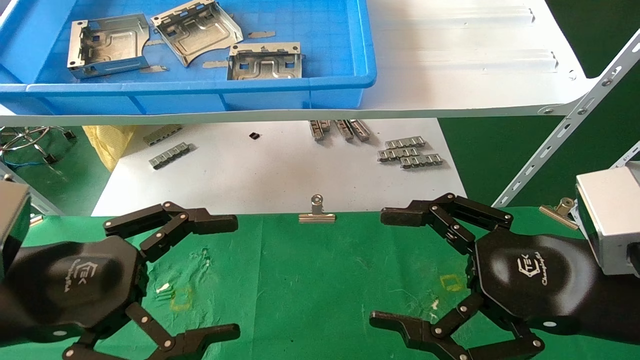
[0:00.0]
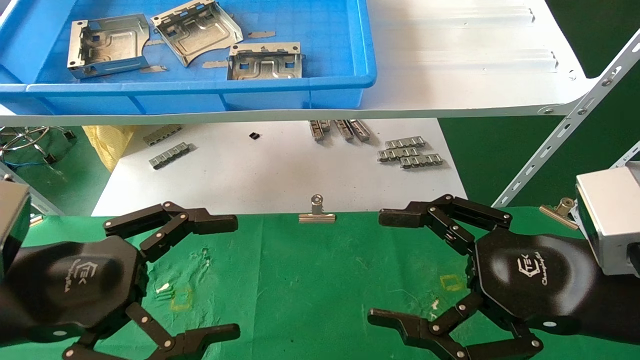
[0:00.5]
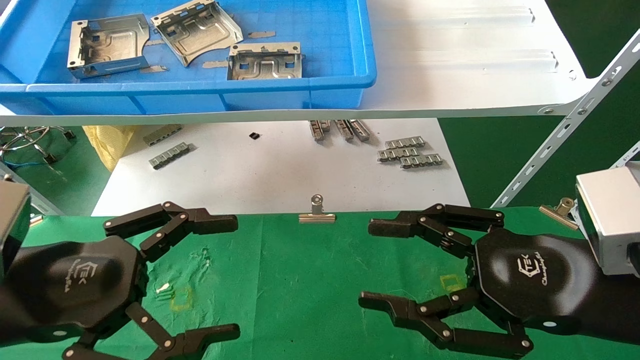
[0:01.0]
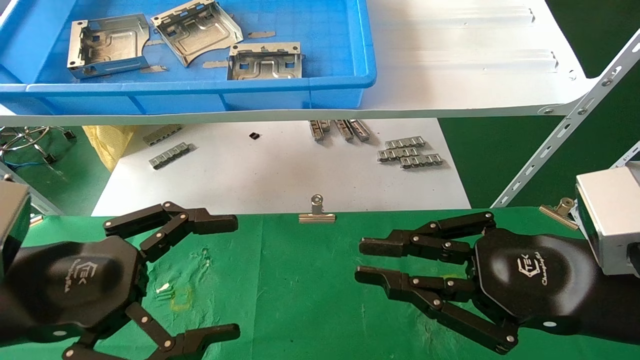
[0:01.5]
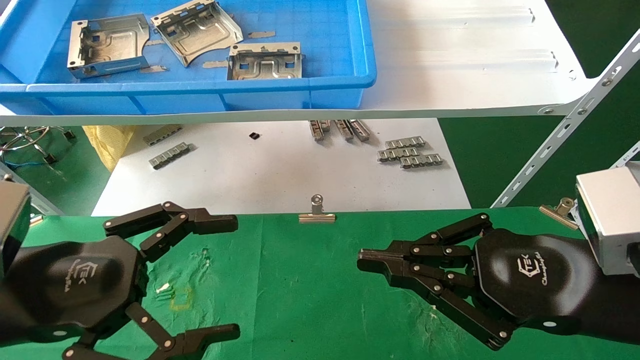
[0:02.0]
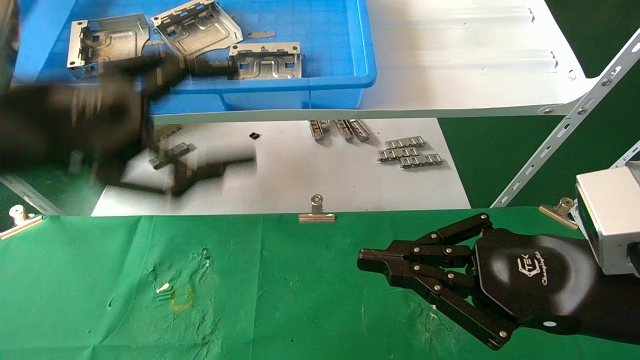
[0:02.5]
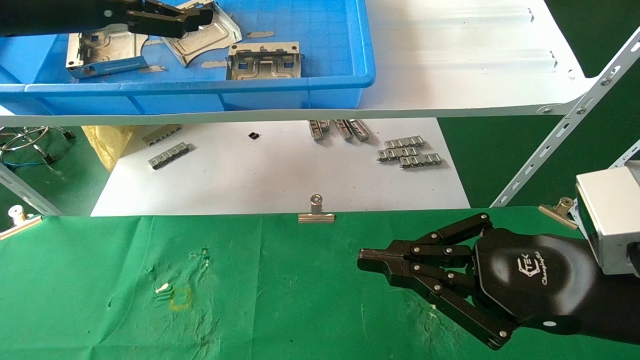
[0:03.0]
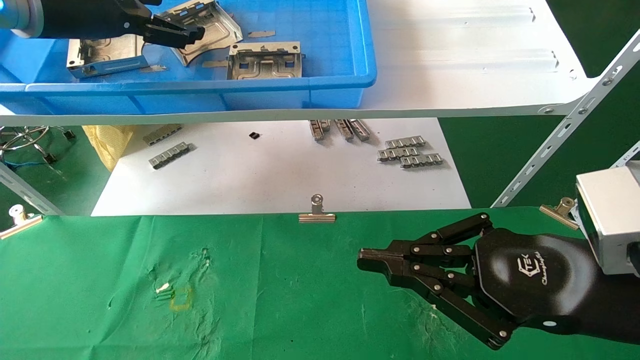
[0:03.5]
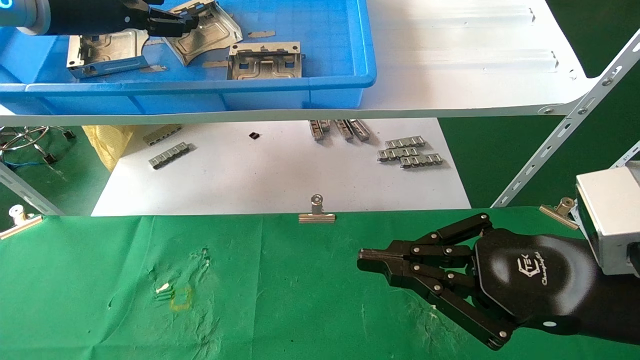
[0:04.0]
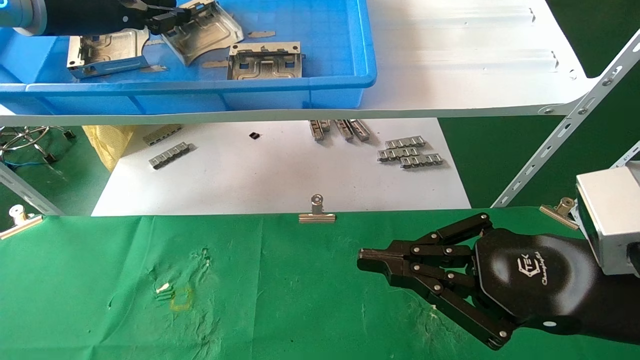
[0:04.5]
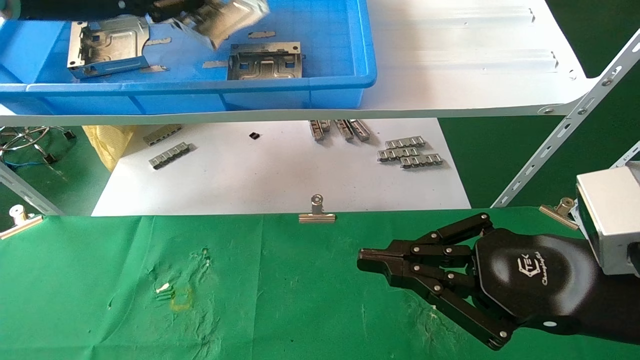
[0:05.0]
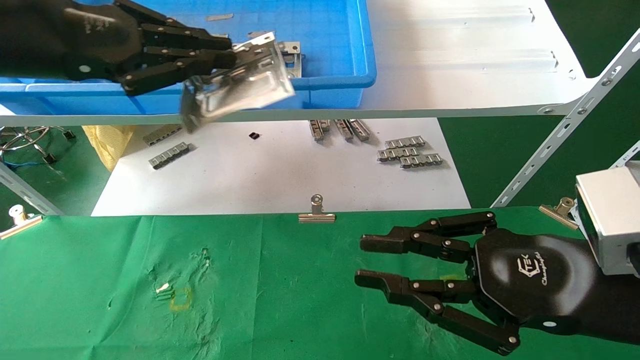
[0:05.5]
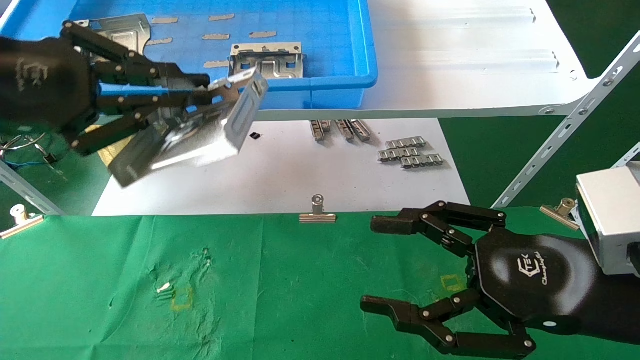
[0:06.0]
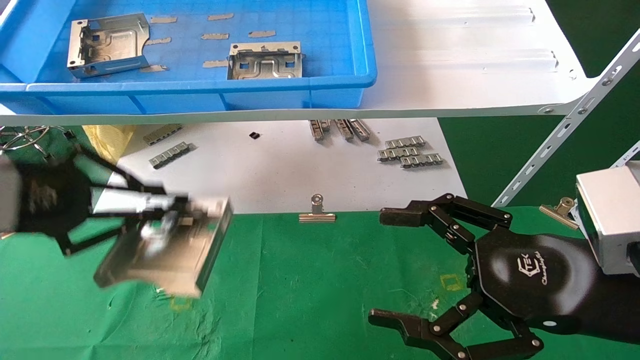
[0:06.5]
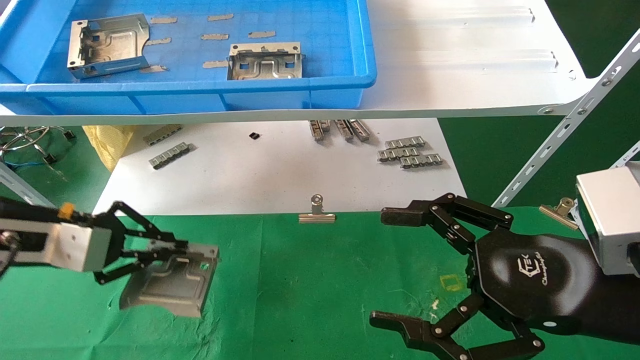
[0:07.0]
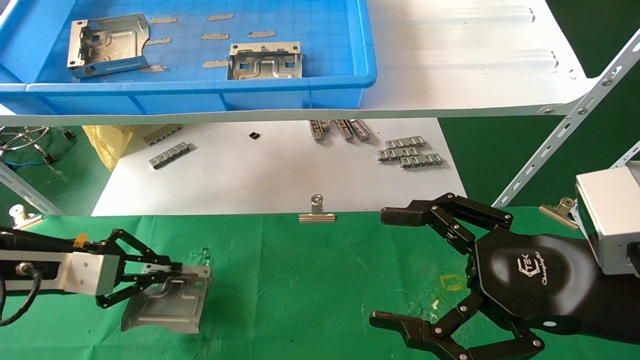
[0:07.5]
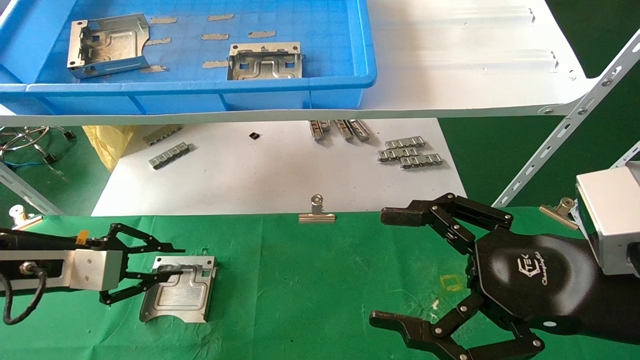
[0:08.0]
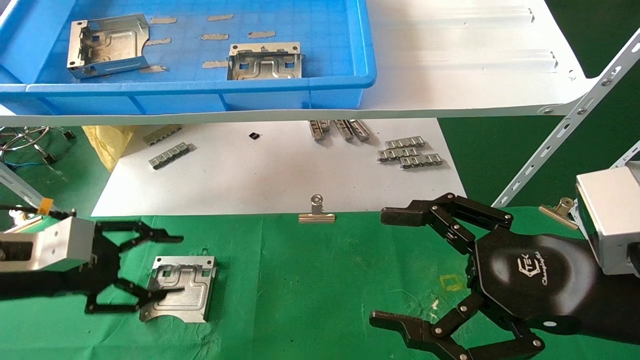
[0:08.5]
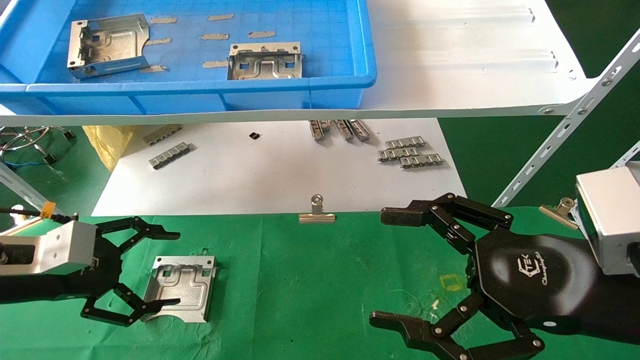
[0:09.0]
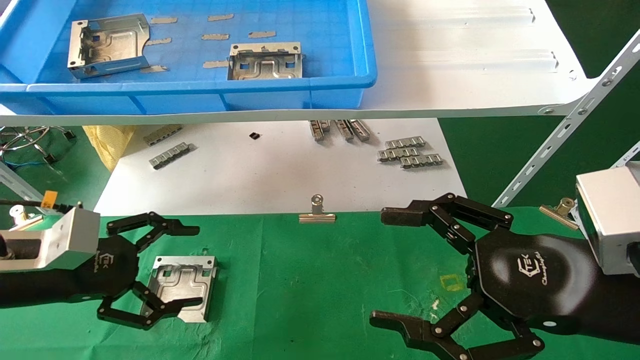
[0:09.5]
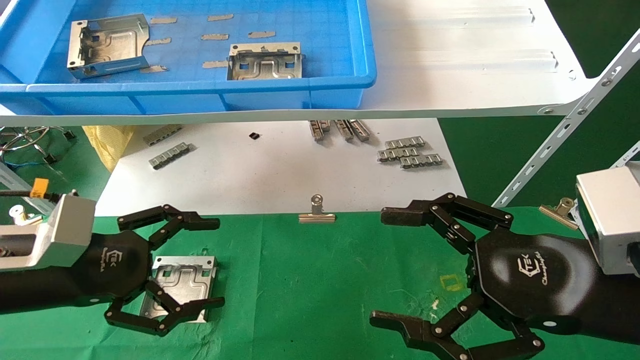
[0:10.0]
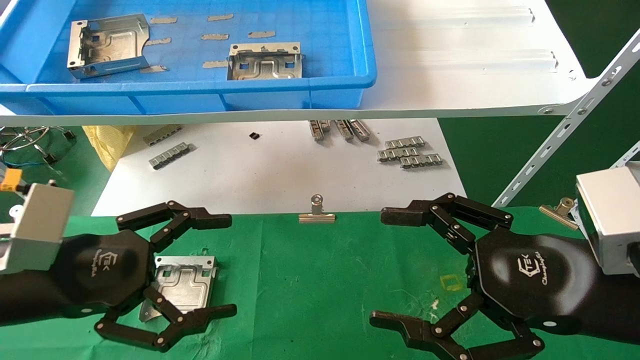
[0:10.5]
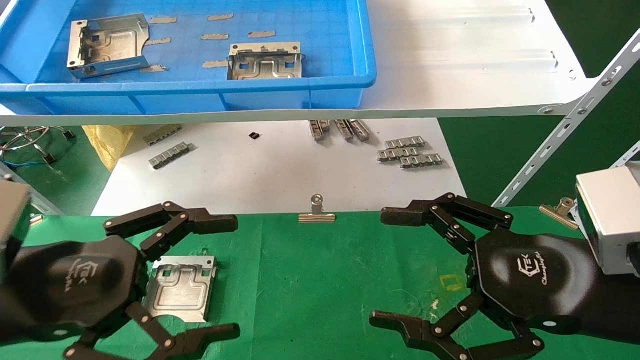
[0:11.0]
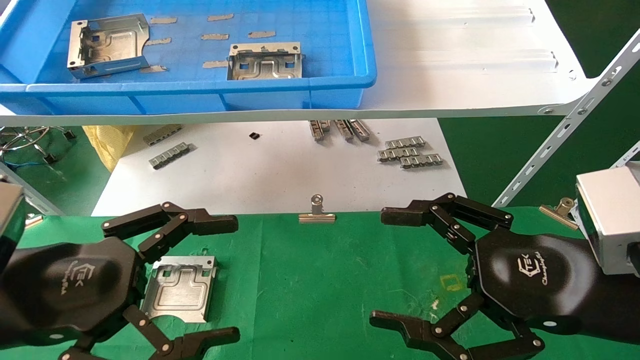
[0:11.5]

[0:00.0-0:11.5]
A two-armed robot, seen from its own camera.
Task of the whole recording: use the mechanical arm to pick up the parts and place them on the table.
Step, 0:02.5 to 0:04.5: Pick up the hard drive bracket from the feeding area.
Step, 0:05.0 to 0:07.5: Place the hard drive bracket into the box.
0:00.0 to 0:02.0: The right gripper closes its fingers.
0:02.0 to 0:04.0: The left gripper shifts about 30 cm upward and forward.
0:04.0 to 0:06.0: The right gripper opens its fingers. The left gripper travels backward and downward by roughly 20 cm, and closes.
0:06.0 to 0:07.5: The left gripper is displaced downward by about 20 cm. The right gripper opens.
0:07.5 to 0:09.5: The left gripper shifts by about 5 cm, and opens up.
0:09.5 to 0:11.5: The left gripper travels backward and to the right by approximately 10 cm.

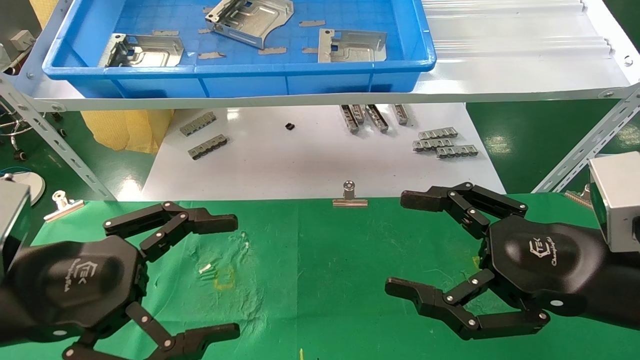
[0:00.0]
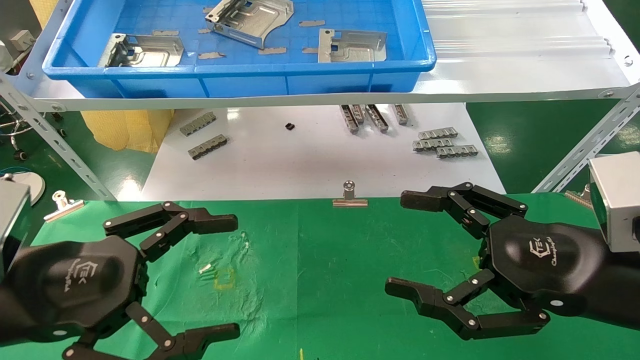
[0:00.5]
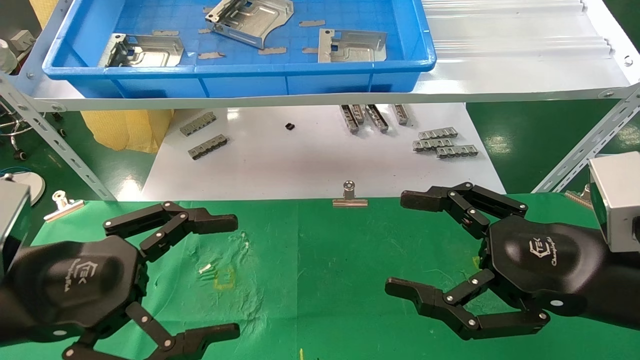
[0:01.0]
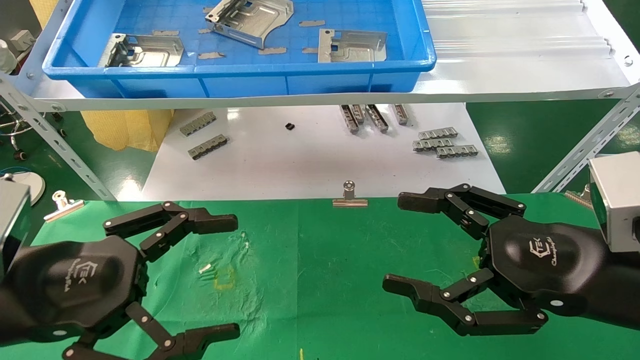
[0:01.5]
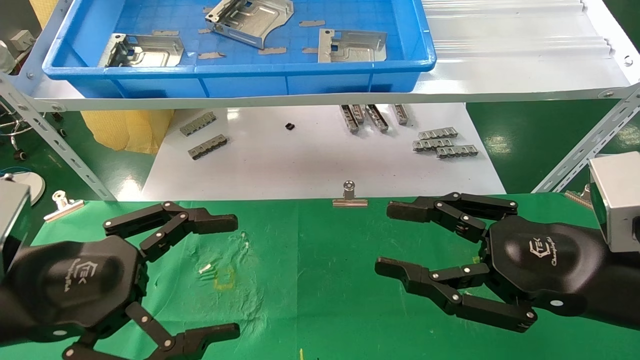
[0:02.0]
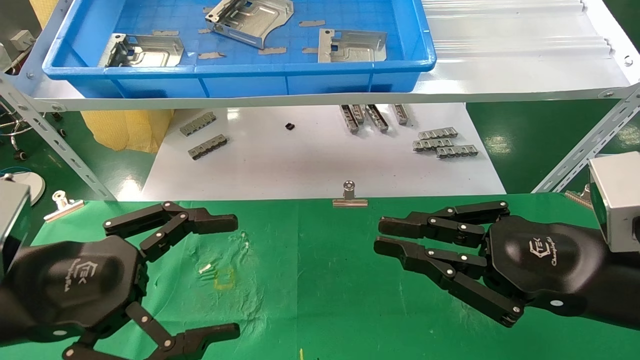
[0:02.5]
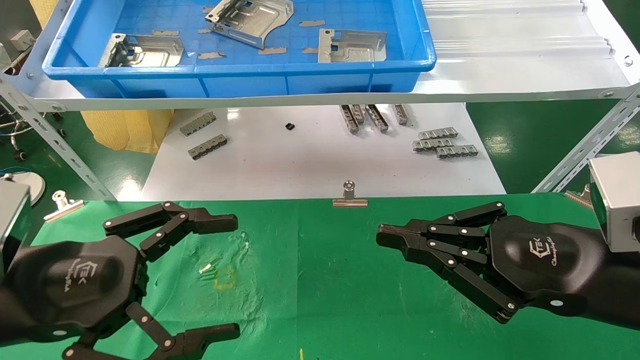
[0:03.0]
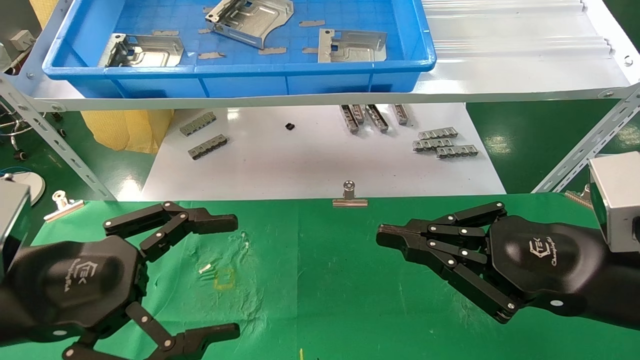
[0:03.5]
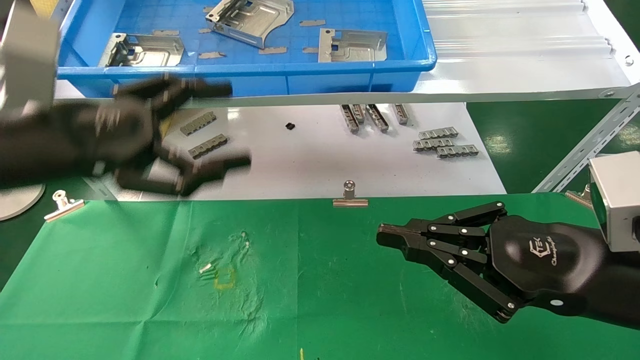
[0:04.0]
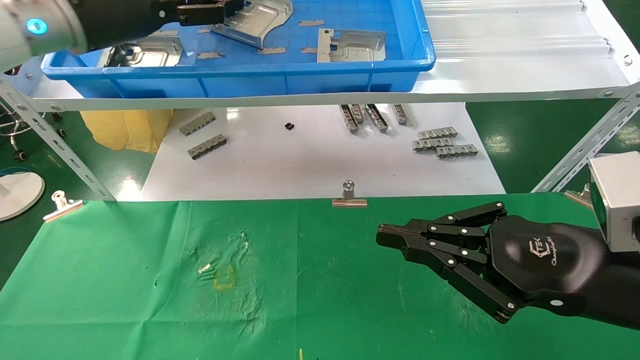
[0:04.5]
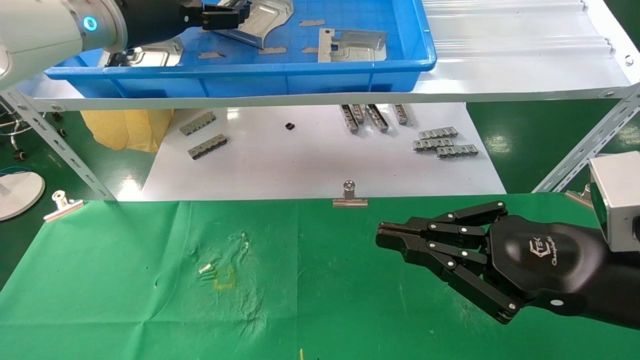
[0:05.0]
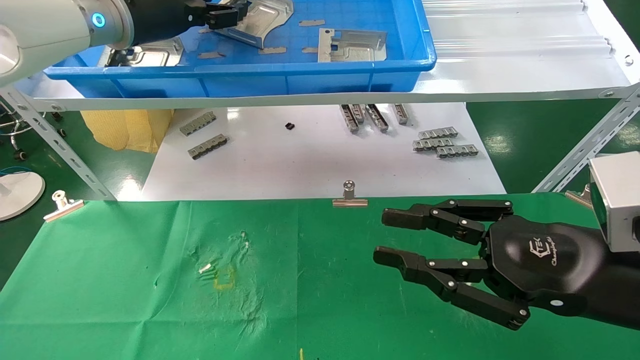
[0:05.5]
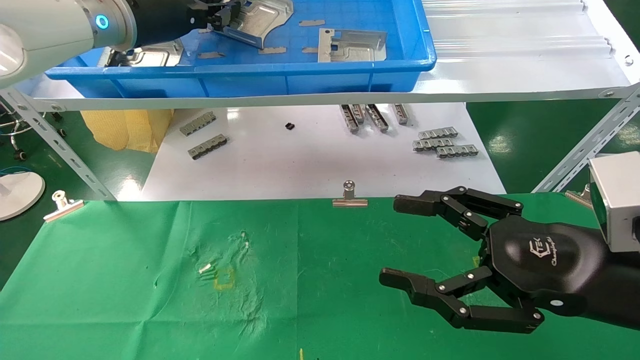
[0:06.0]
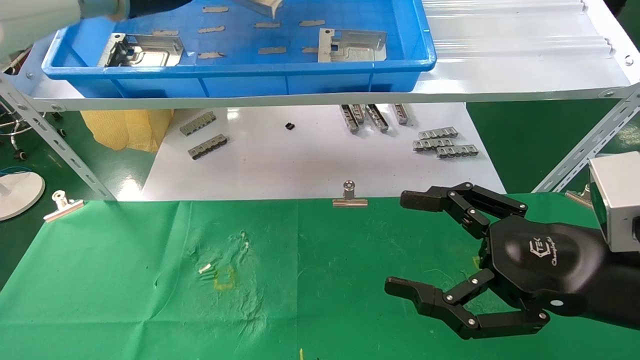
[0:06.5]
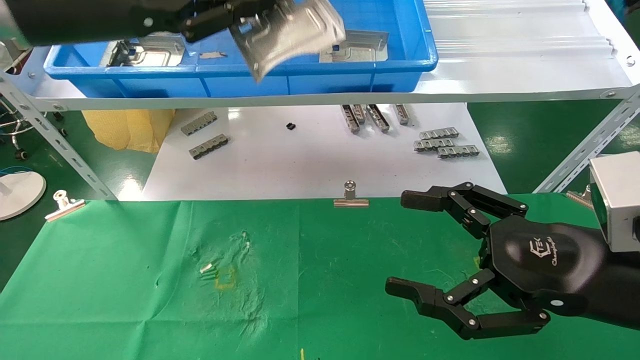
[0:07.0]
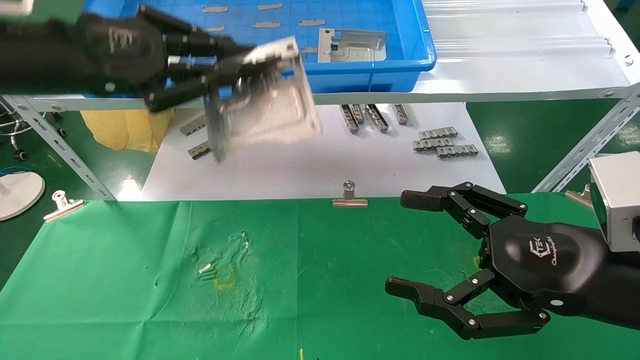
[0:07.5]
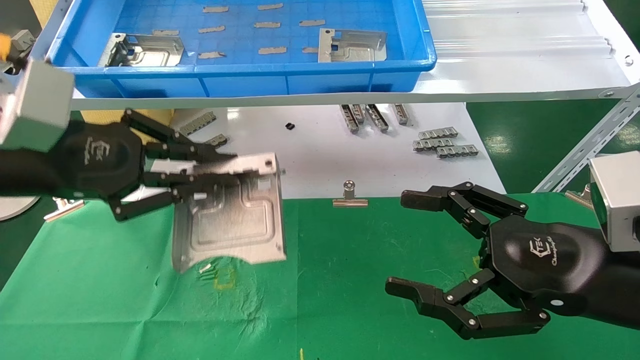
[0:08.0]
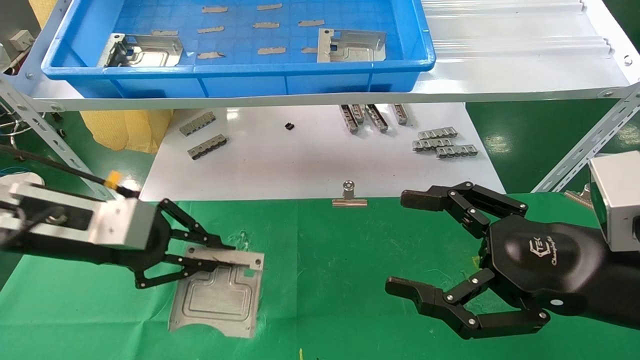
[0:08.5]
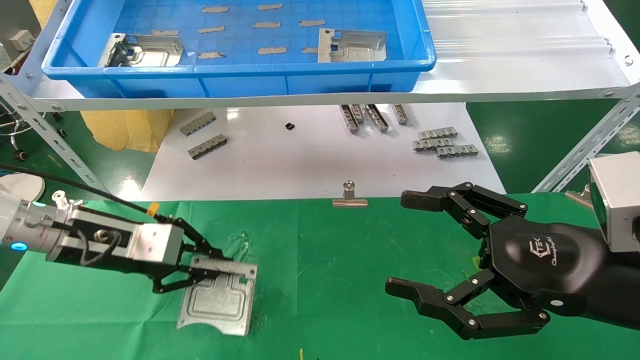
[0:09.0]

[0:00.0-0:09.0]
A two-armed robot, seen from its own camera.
Task of the whole recording: use the mechanical arm to pick up the parts and place them on the table.
Step, 0:04.0 to 0:06.0: Pick up the hard drive bracket from the feeding area.
0:00.0 to 0:02.0: Both grippers stay about where they are.
0:02.0 to 0:04.5: The right gripper closes its fingers. Meanwhile the left gripper is displaced forward and upward by roughly 30 cm.
0:04.5 to 0:07.0: The left gripper heads backward, covering roughly 10 cm, and closes. Meanwhile the right gripper opens.
0:07.0 to 0:09.0: The left gripper travels downward by some 25 cm.
